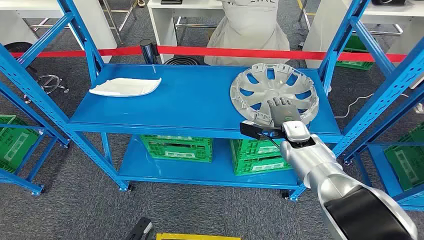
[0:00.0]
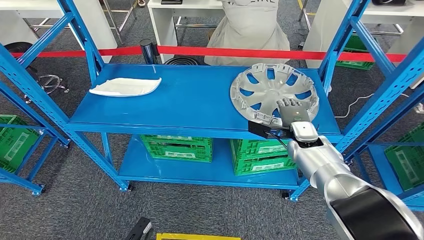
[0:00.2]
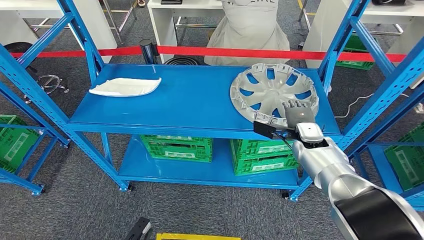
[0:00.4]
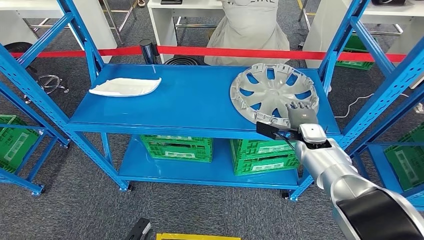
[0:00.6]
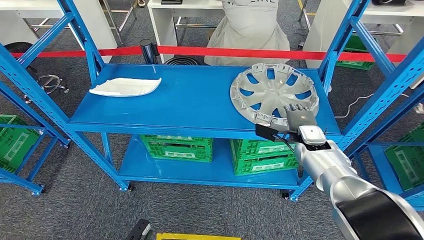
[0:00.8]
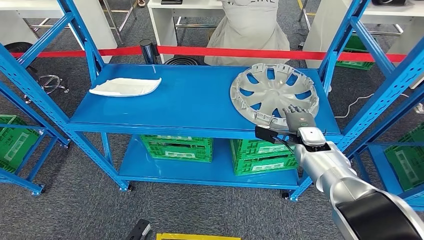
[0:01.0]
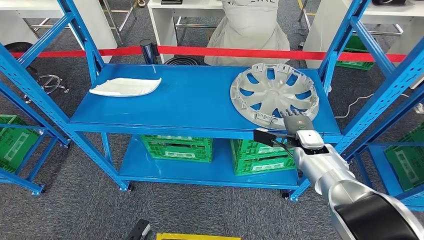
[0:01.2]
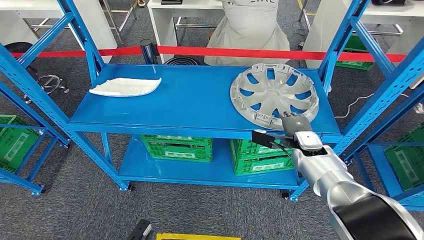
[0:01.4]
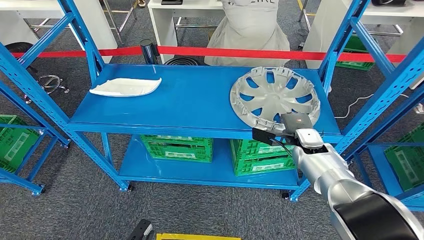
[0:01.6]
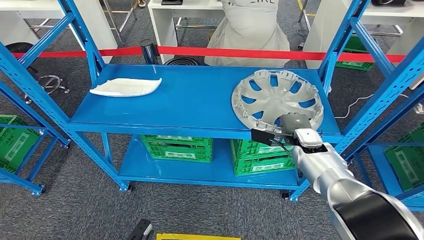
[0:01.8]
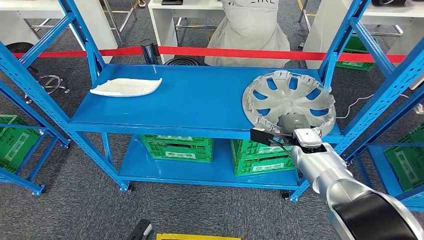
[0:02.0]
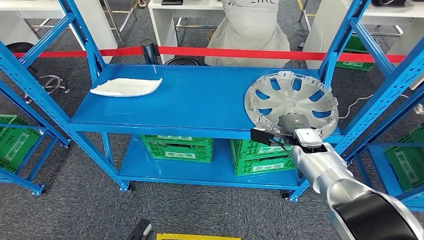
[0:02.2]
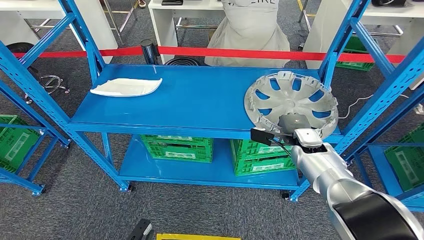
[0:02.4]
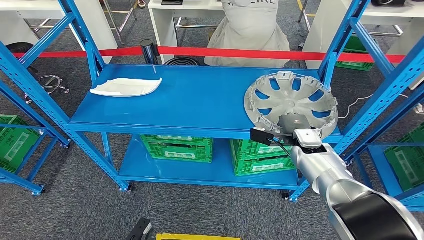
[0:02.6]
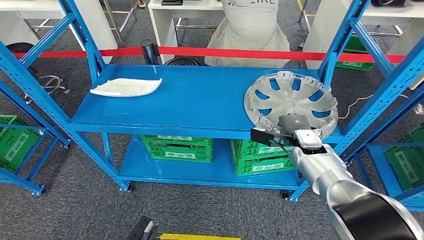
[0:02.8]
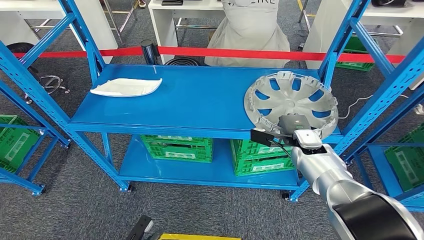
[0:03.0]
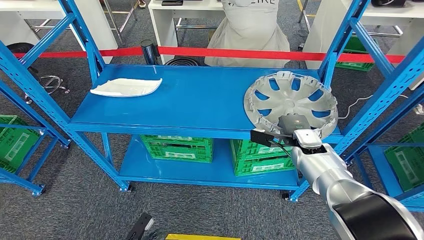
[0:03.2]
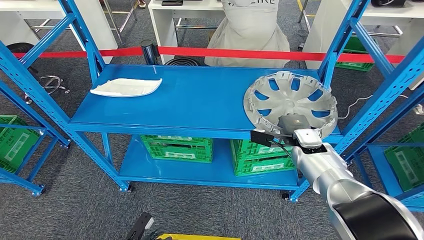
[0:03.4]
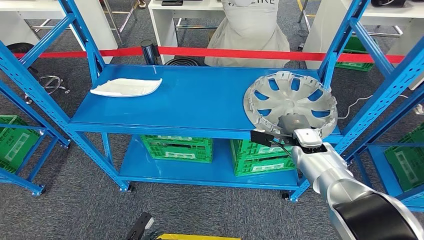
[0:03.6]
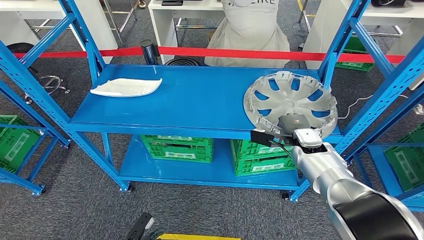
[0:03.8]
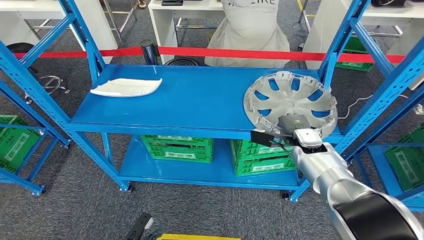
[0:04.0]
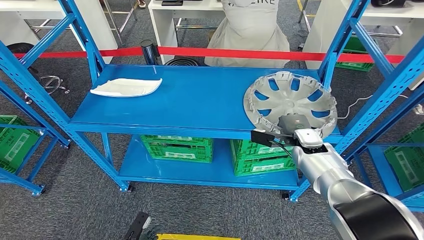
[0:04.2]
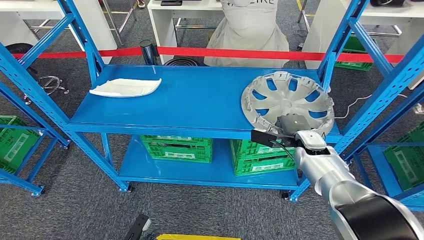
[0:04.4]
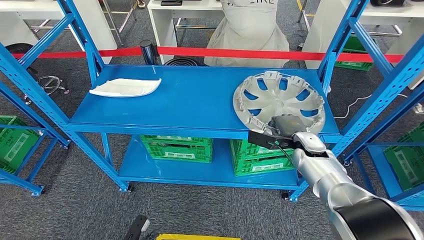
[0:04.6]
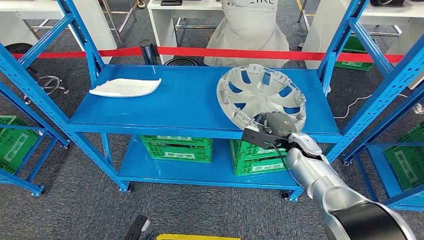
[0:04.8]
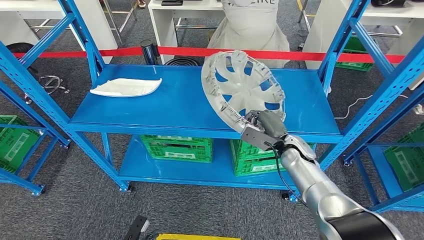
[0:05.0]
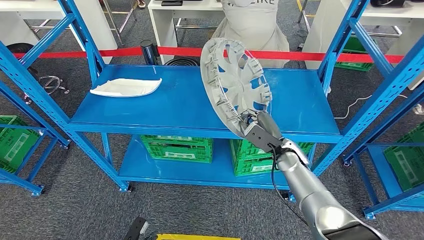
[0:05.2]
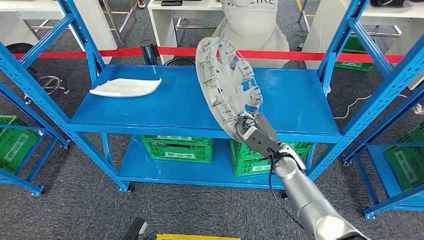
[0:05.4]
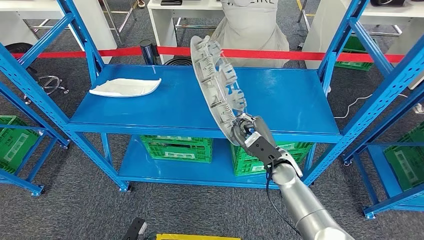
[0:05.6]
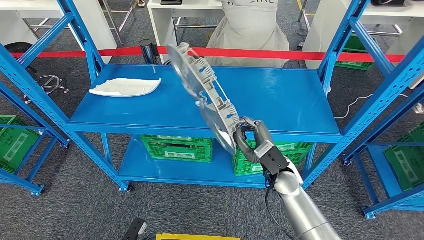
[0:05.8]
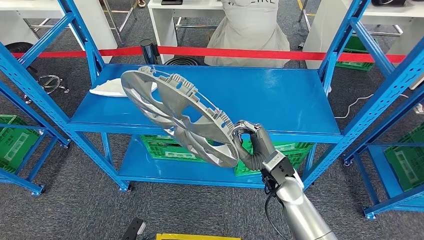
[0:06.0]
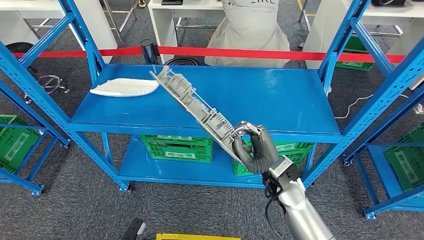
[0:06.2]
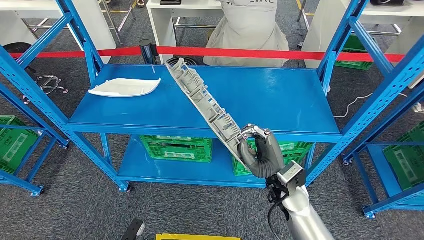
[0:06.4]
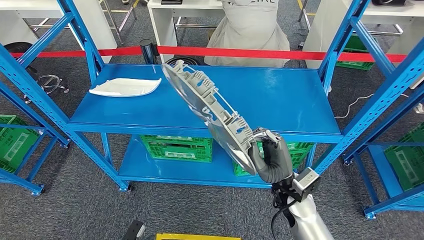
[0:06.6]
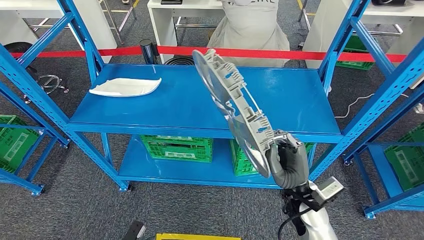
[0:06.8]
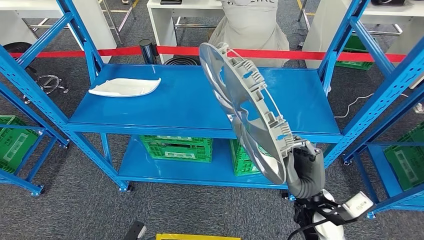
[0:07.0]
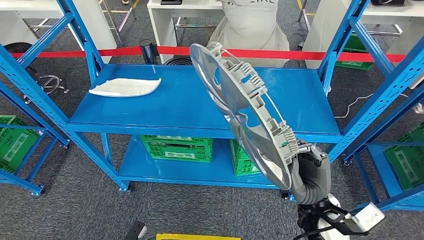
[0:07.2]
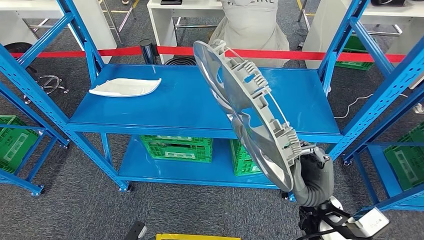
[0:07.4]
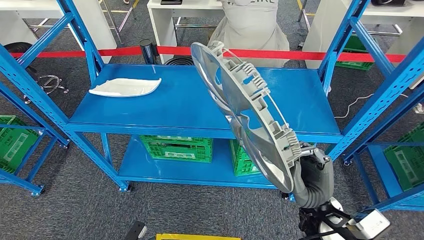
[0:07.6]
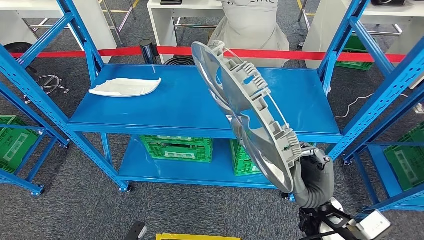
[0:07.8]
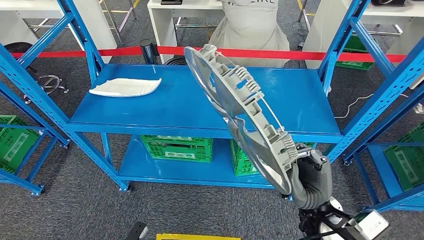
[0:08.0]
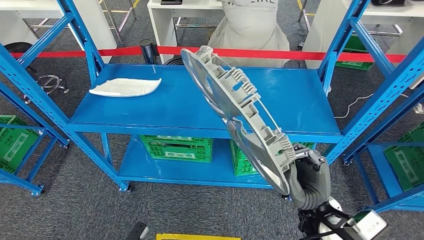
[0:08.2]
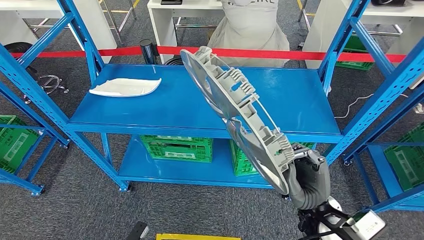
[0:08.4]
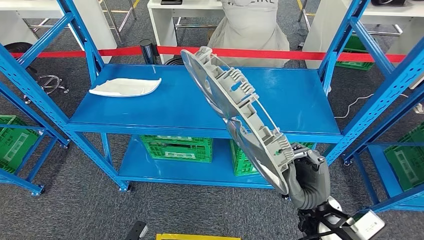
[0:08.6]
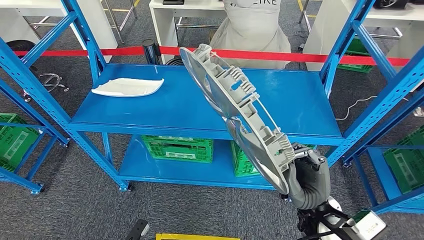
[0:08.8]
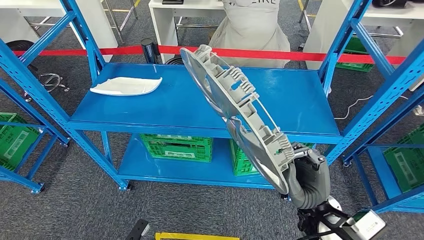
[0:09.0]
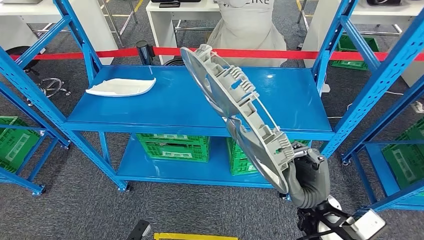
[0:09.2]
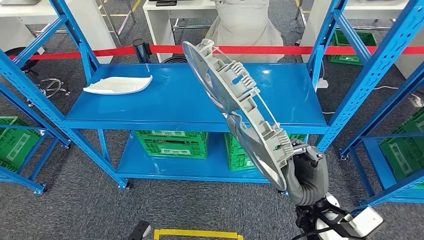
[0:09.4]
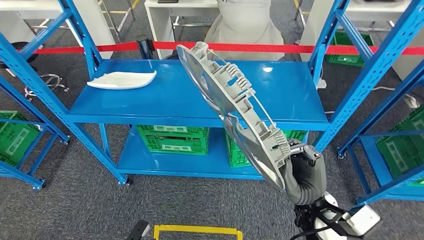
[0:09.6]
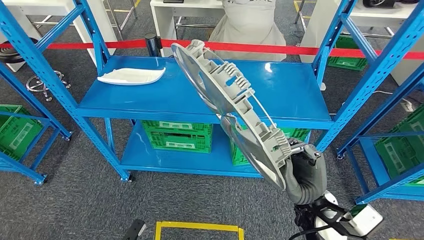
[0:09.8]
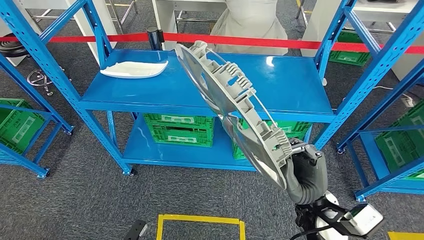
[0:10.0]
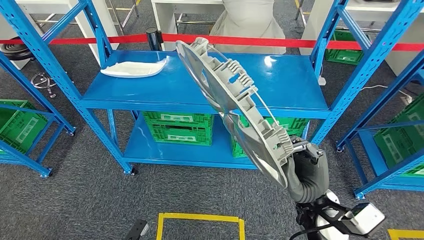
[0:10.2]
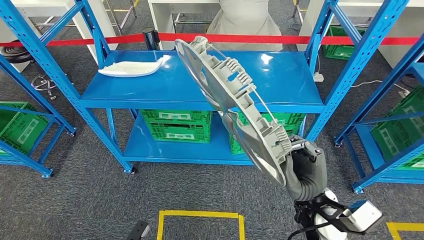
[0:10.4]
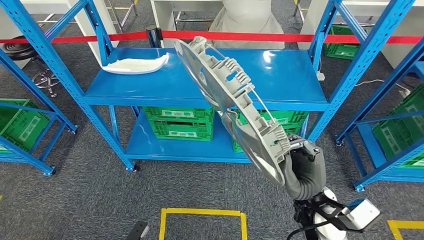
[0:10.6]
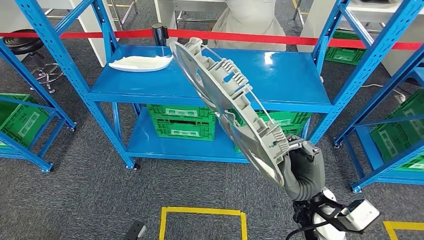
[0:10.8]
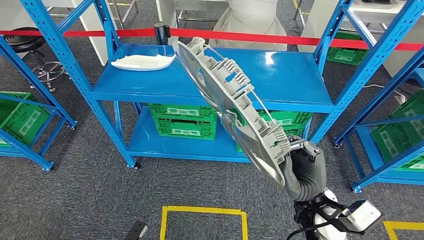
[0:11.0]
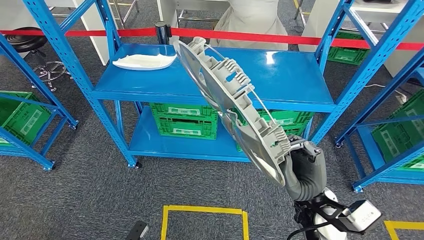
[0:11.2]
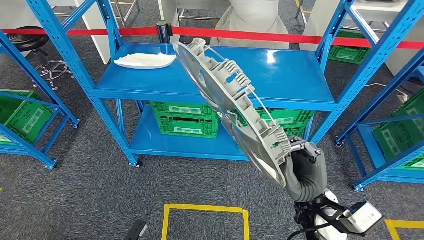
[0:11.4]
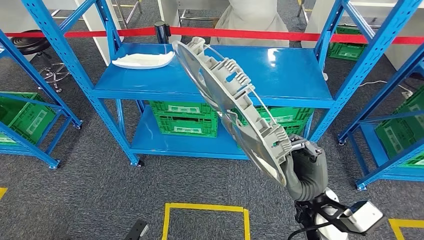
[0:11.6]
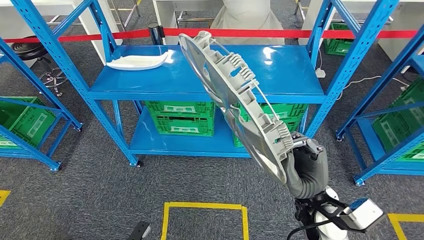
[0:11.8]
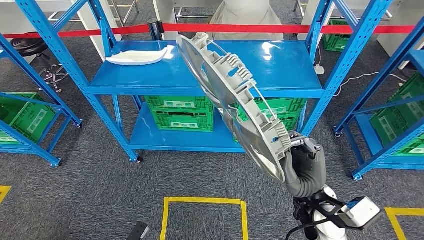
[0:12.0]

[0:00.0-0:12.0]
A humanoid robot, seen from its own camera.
Step, 0:00.0 to 0:06.8: Pick up the small parts from the shelf.
0:01.6 to 0:04.4: The hands move only a little.
0:06.0 to 0:07.6: The right hand shifts approximately 10 cm backward and to the right.
0:07.6 to 0:09.0: Neither hand changes place.

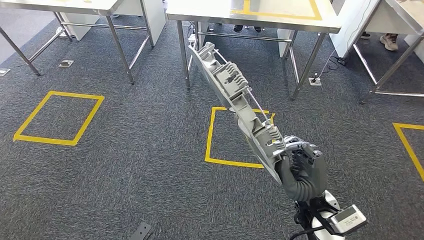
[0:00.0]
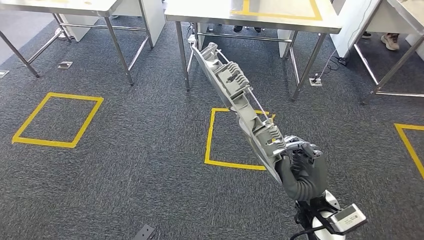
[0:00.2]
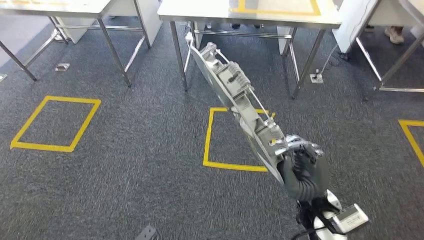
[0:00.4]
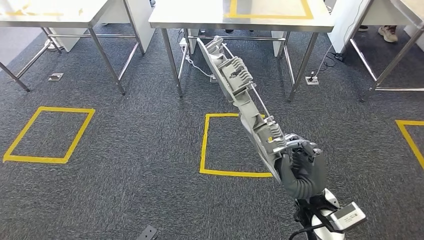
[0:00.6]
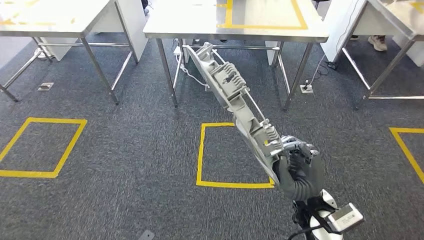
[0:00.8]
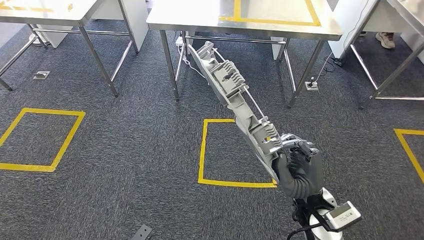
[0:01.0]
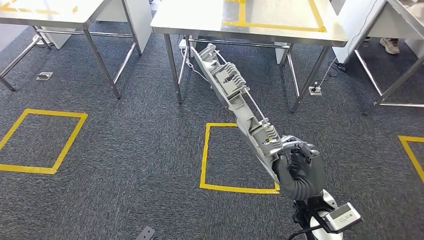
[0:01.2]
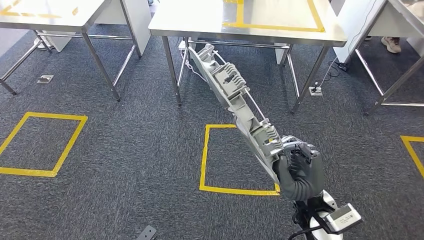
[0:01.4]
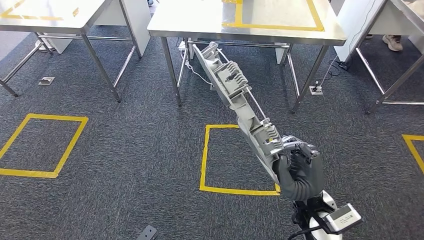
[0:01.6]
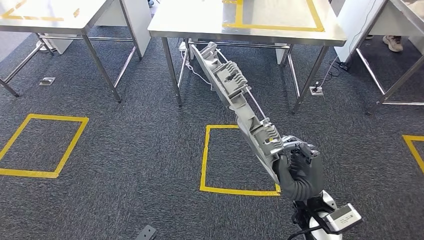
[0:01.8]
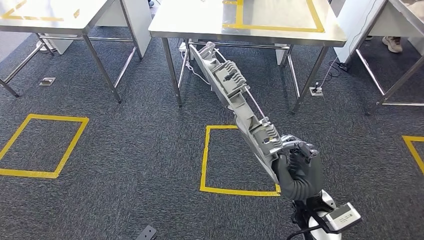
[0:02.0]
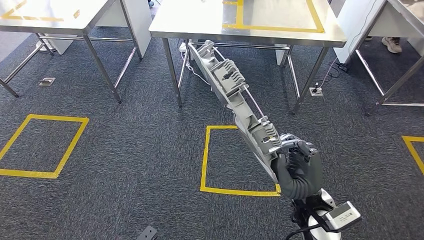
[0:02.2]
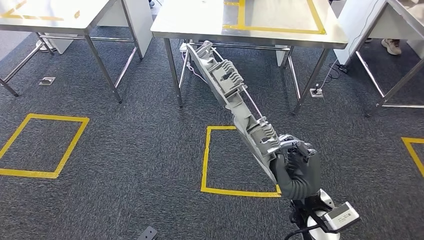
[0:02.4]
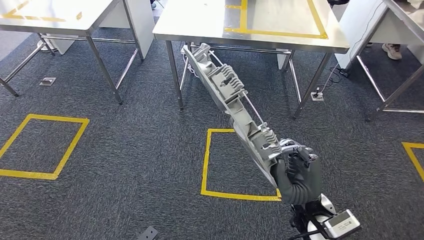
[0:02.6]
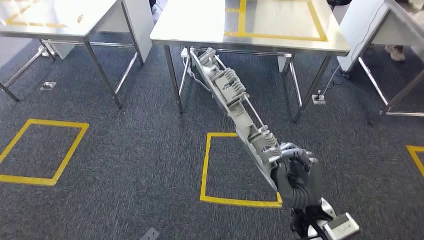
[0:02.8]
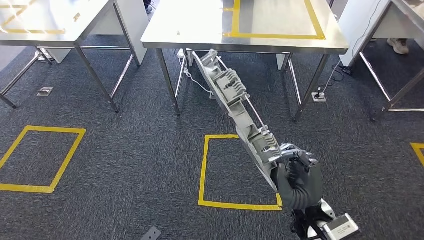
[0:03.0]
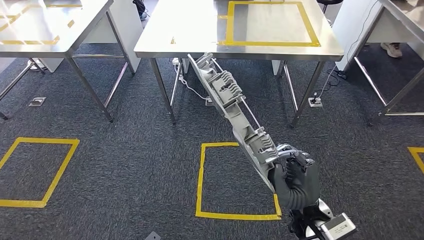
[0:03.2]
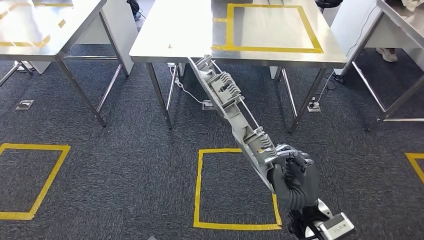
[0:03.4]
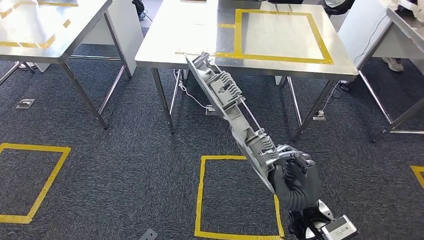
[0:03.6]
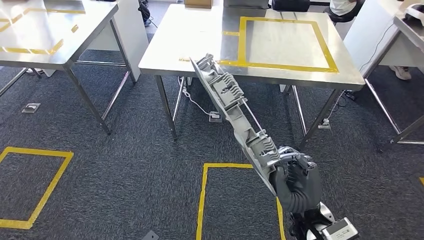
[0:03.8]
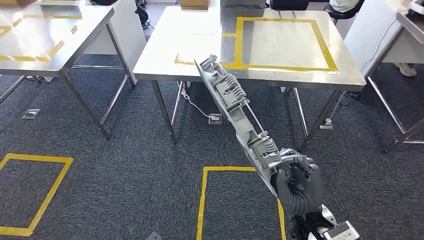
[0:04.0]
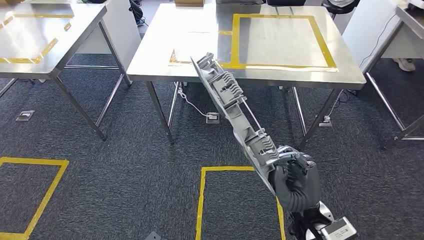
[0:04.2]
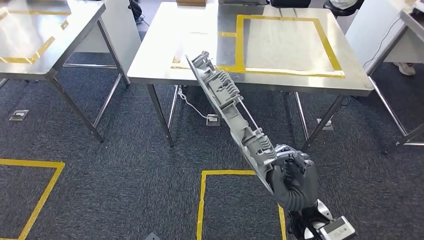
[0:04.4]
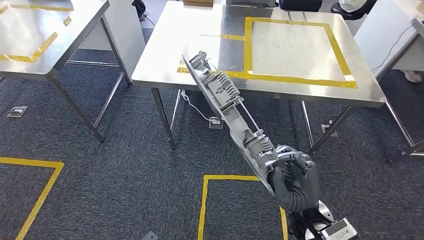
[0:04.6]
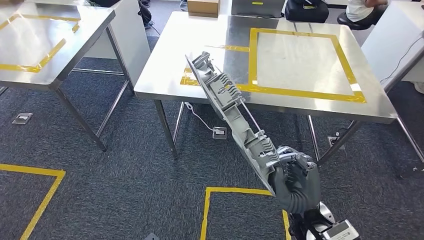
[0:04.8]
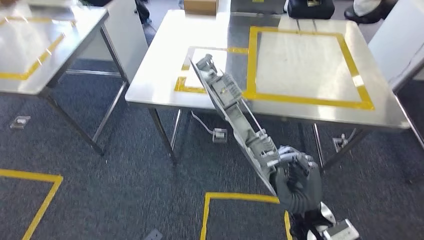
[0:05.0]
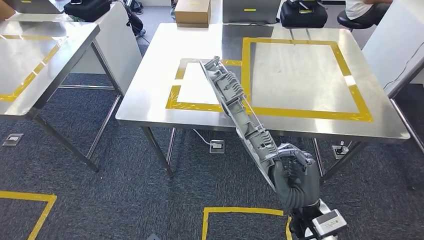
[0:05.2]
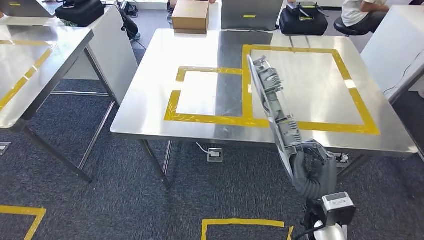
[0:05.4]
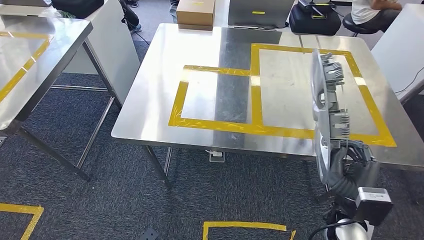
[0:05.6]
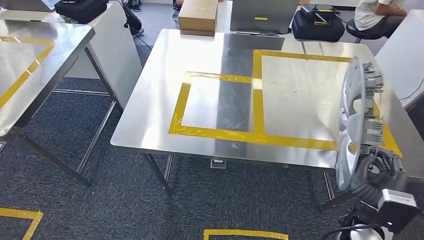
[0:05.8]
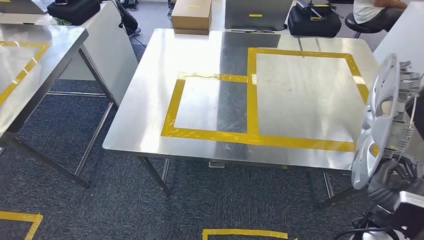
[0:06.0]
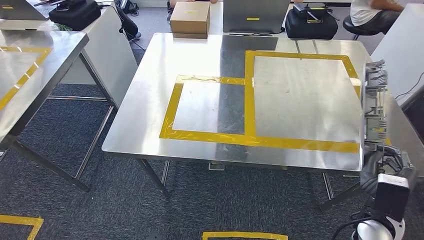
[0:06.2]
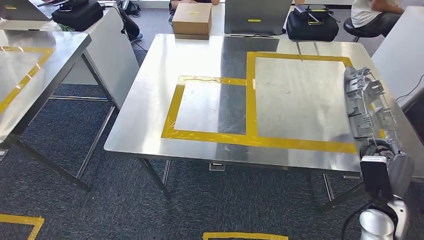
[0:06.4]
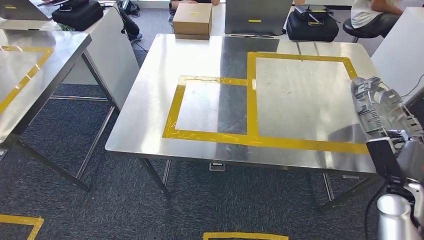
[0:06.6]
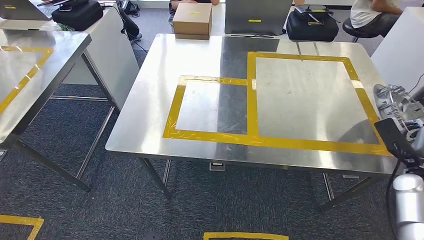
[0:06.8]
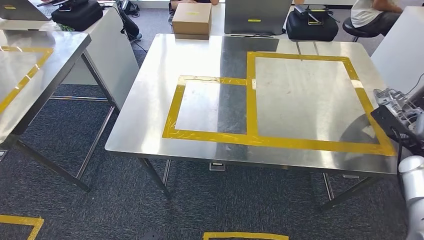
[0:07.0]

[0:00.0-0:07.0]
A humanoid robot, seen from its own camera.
Step, 0:00.0 to 0:05.4: Move the small parts to the workbench.
